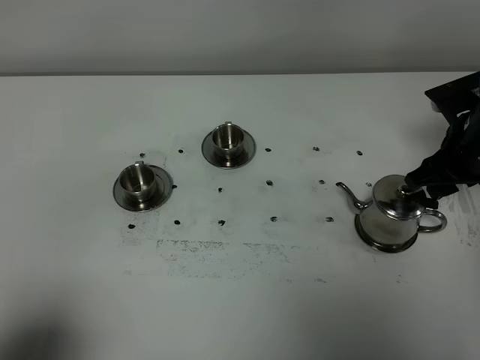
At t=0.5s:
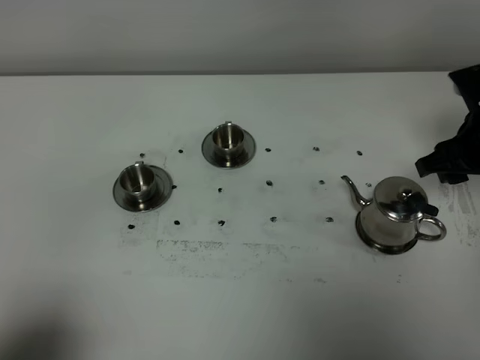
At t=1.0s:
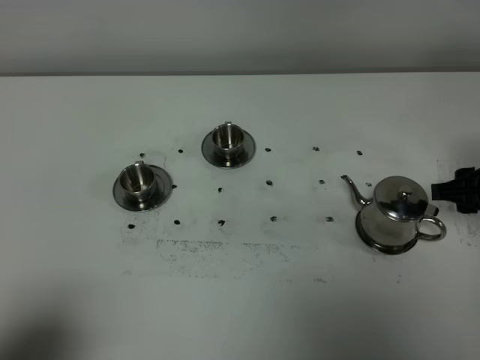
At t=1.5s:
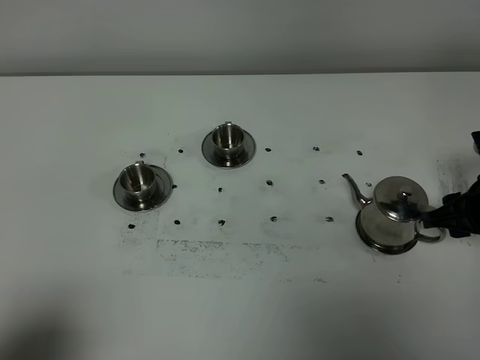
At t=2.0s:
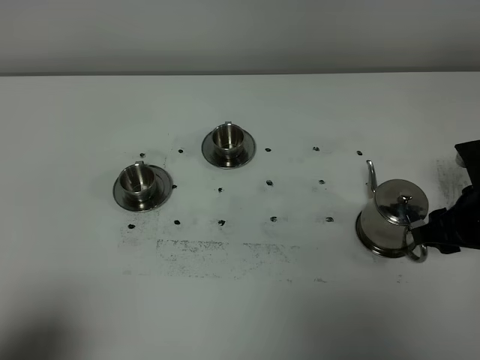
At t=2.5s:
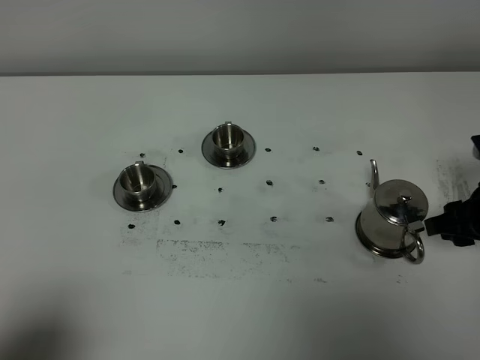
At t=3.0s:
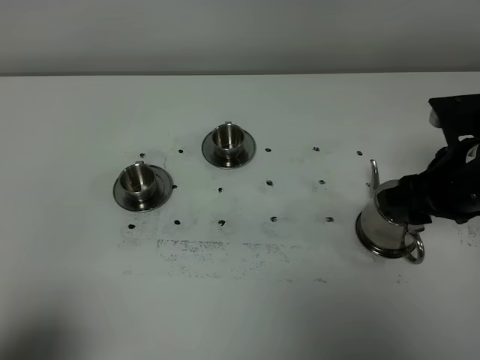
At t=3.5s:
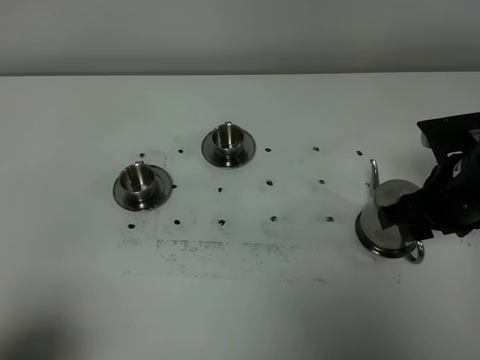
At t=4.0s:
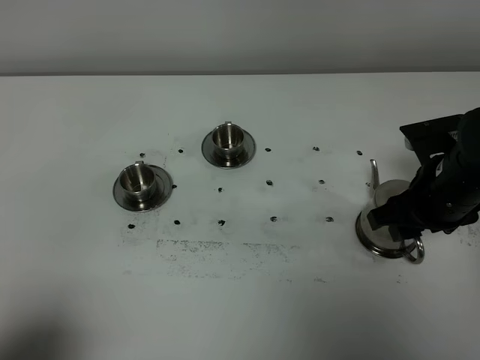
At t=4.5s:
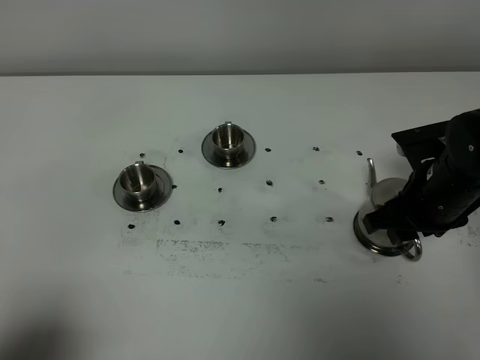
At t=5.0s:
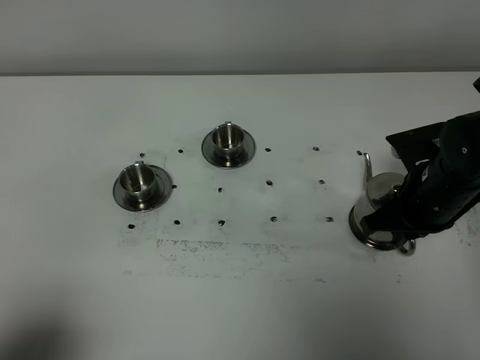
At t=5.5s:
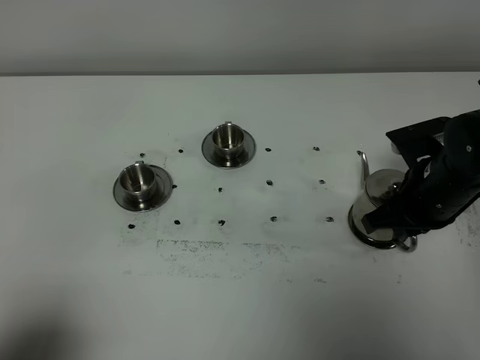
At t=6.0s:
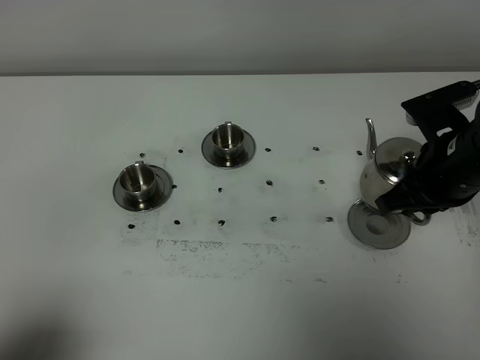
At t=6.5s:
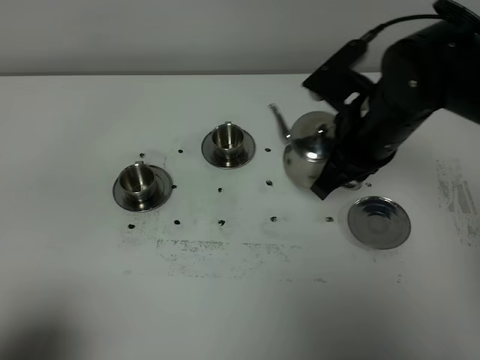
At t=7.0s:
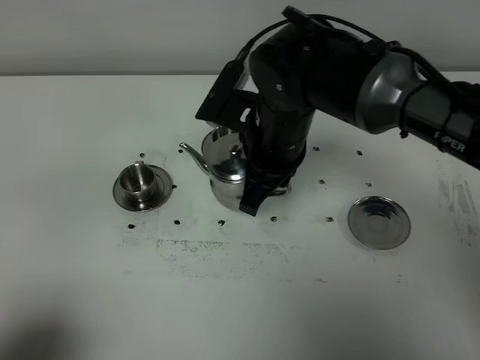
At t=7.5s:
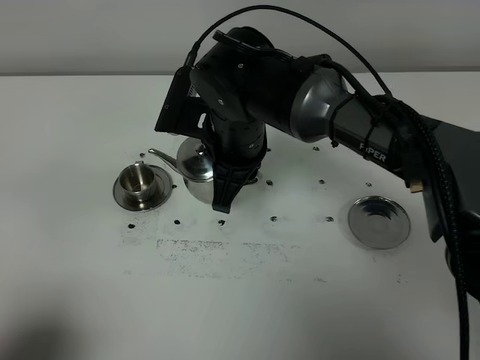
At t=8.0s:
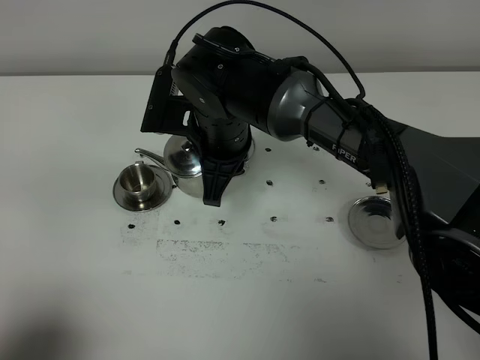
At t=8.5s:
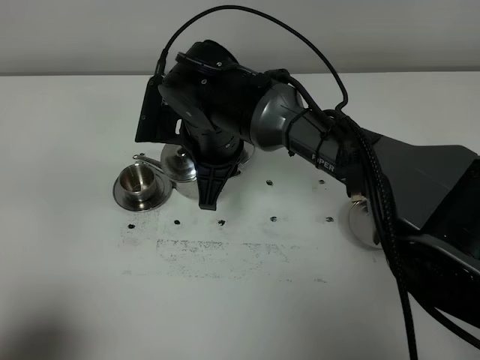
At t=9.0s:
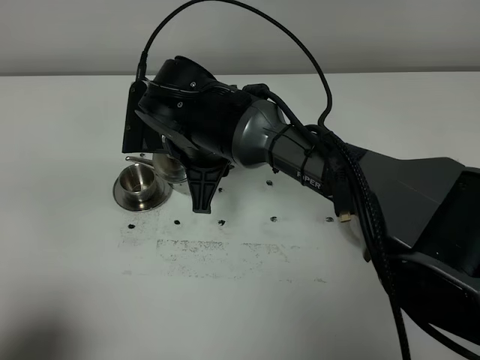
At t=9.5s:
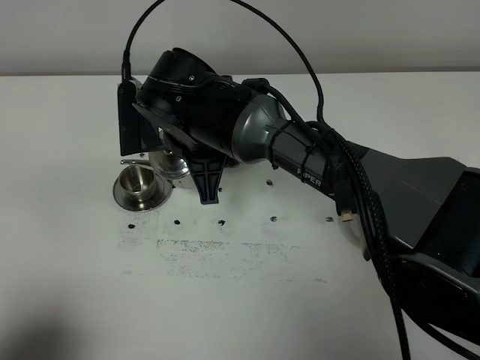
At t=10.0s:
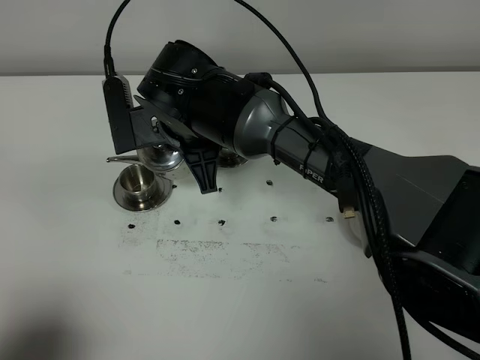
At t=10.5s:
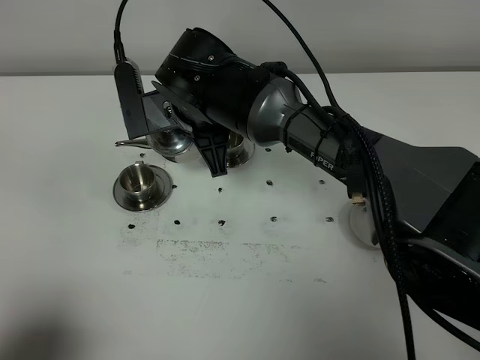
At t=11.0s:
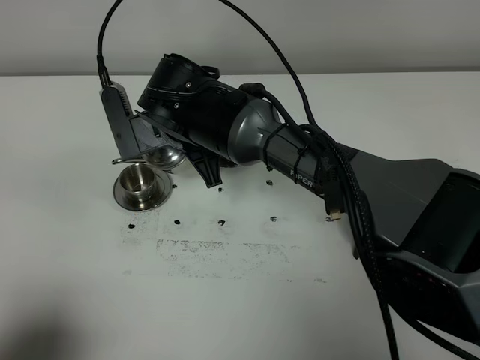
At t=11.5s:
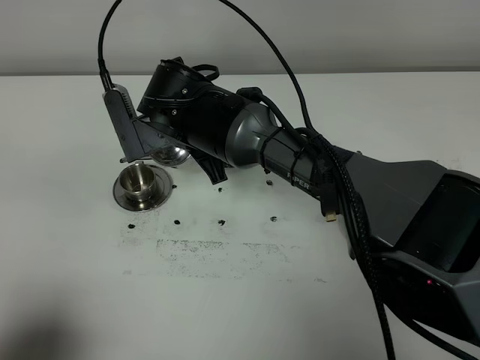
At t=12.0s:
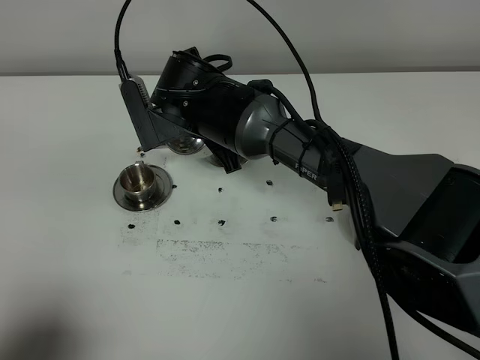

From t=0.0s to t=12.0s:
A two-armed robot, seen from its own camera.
Task of the whole recording: grasp the stainless steel teapot and pour the tea into the two stainless steel teacups one by one, put the stainless steel teapot back in its original place.
Step, from t=0.0s to t=5.5s: Pick up the teapot with the right gripper.
From t=0.0s to t=2.0s: The right gripper shifts approximately 10 cm backward.
From t=2.0s to t=4.0s: The right gripper heads to the left, covering some 5 cm.
From t=4.0s to t=6.0s: The right gripper closes up.
From t=6.0s to t=8.0s: The right gripper travels to the left by roughly 25 cm.
From t=10.0s to t=12.0s: The grippers make only small movements.

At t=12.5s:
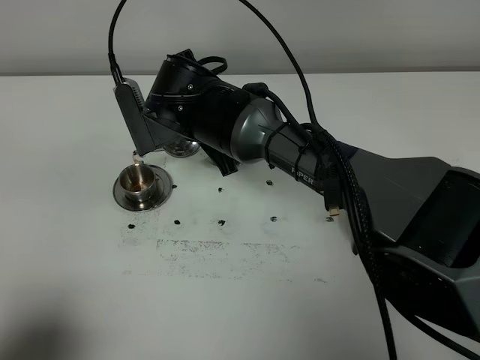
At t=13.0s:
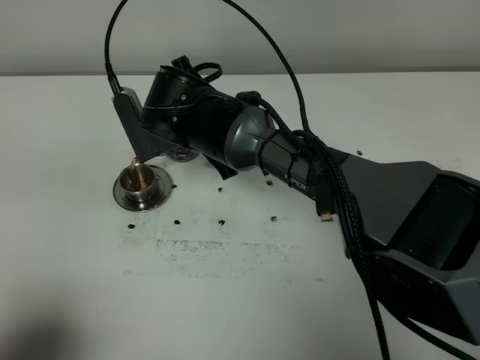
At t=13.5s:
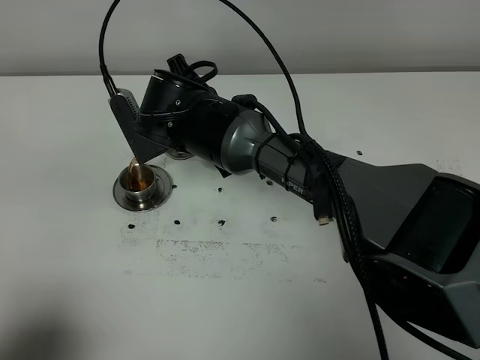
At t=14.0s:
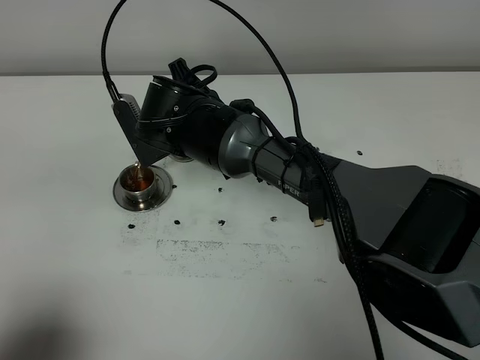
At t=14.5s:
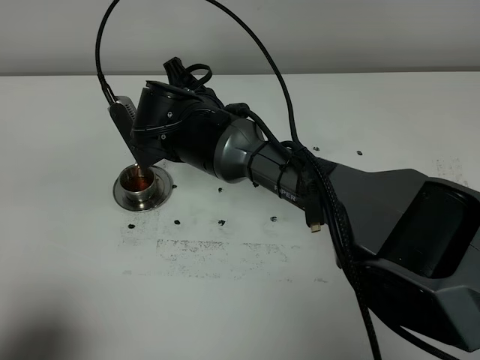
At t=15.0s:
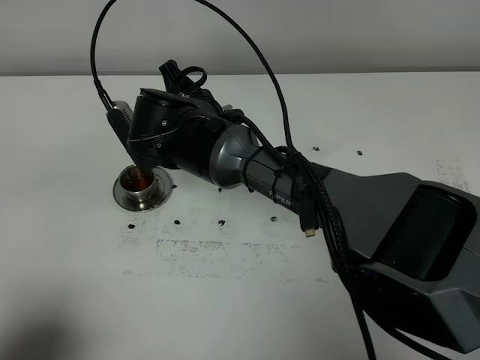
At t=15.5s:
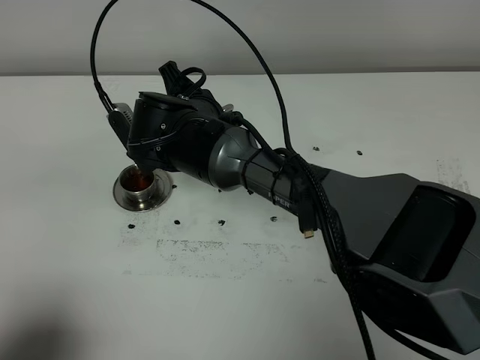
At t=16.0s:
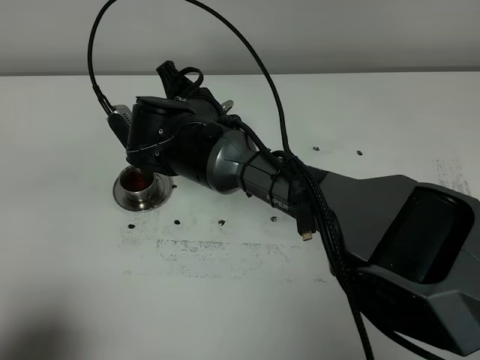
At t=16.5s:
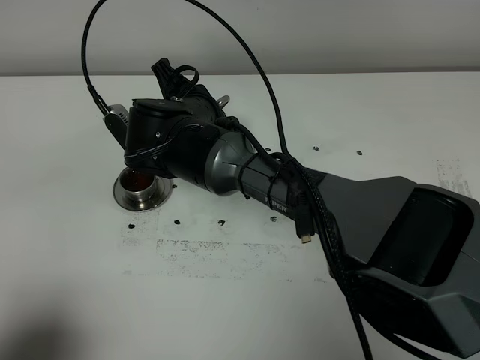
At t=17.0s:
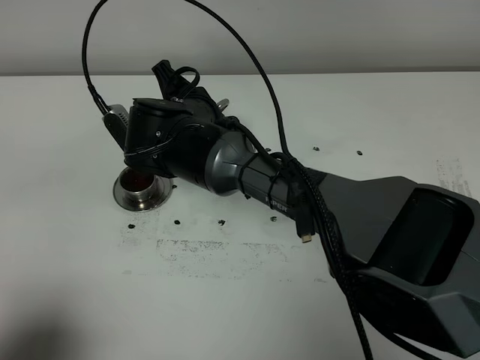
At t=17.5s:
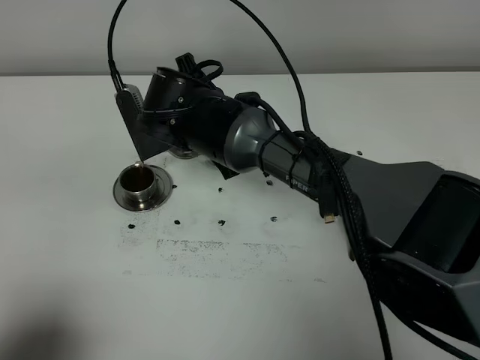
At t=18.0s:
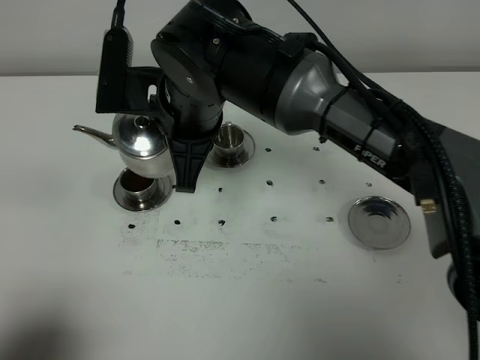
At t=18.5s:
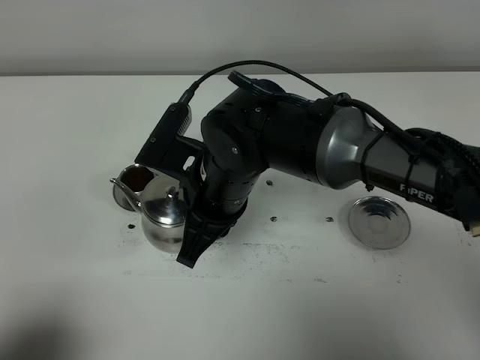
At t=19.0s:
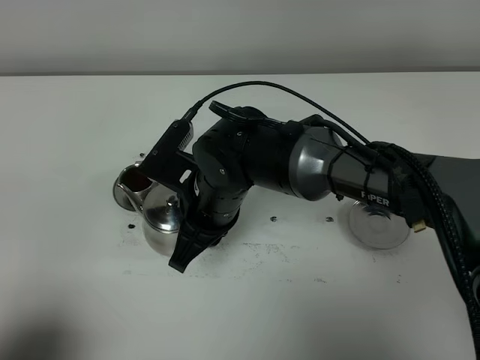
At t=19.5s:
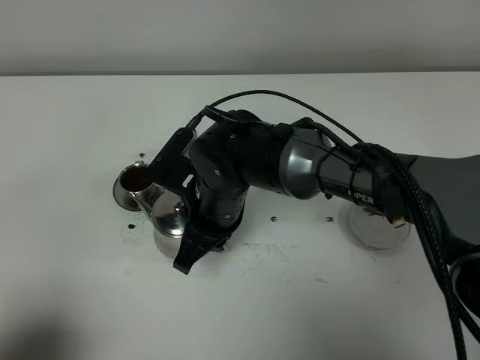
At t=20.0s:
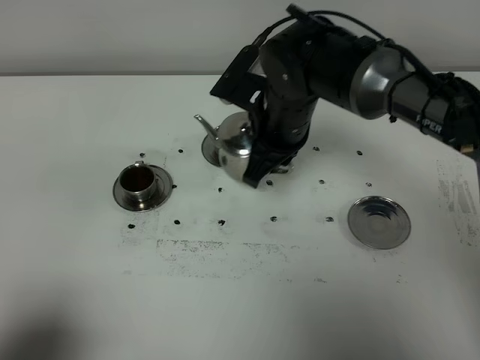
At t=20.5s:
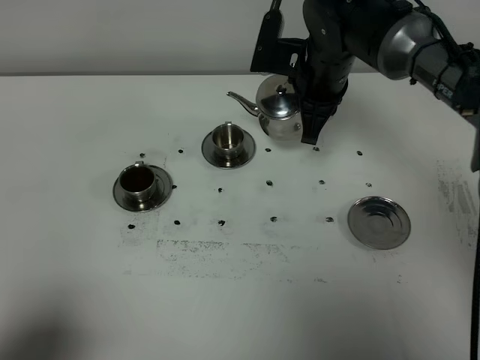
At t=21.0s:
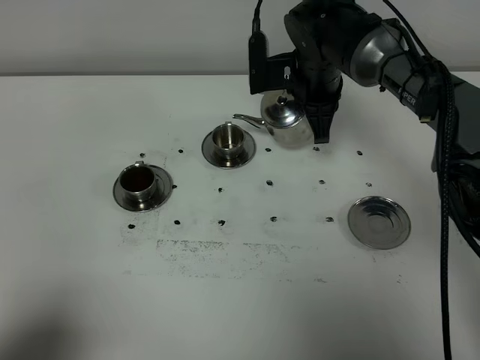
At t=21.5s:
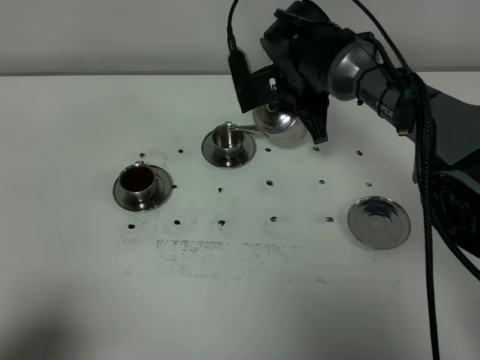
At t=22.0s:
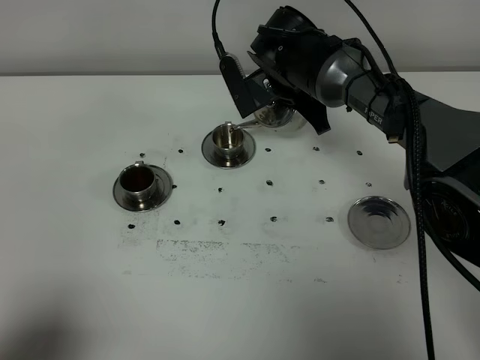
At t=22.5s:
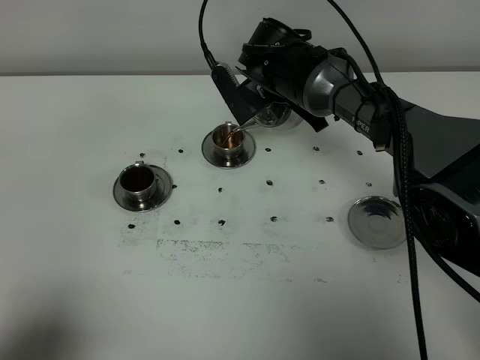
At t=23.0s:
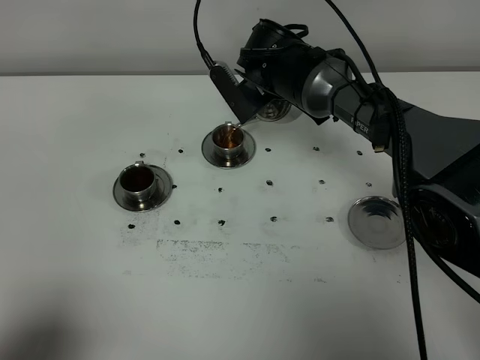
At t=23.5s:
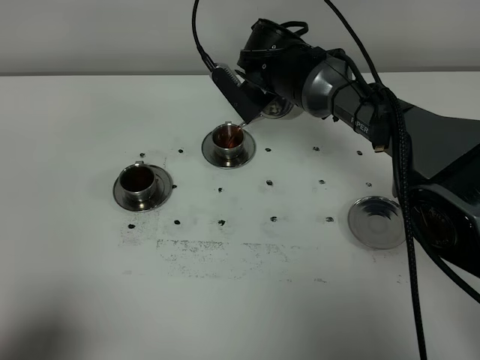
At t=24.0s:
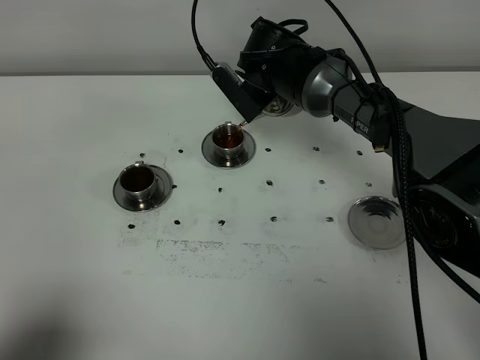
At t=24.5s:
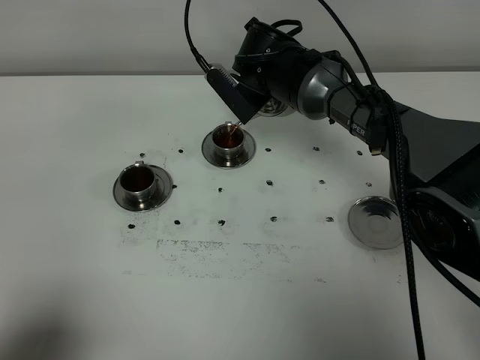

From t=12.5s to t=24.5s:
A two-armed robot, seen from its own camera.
Task of the whole recording: grasp the stainless steel teapot and pour the tea into the two stainless steel teacups one by one, put the stainless steel teapot back in its original place.
From t=12.5s to t=16.5s: The grippers make only small movements.
From t=16.5s to t=18.5s: The right gripper heads backward, covering approximately 10 cm.
From t=18.5s to t=20.5s: The right gripper moves forward and to the right, roughly 20 cm.
From t=20.5s to t=22.5s: The right gripper ends up about 5 cm from where it was.
From t=22.5s to t=24.5s: The grippers stay close to where they were, moving slightly.

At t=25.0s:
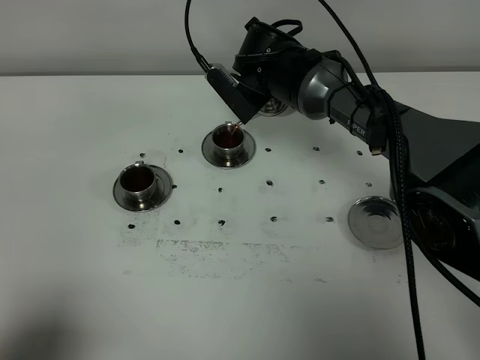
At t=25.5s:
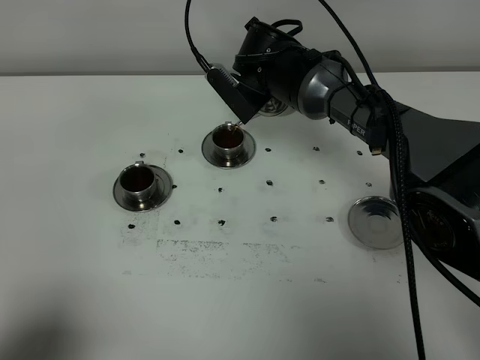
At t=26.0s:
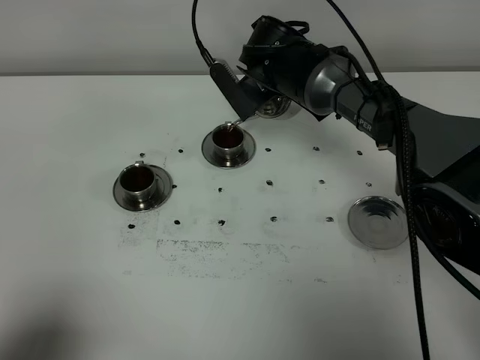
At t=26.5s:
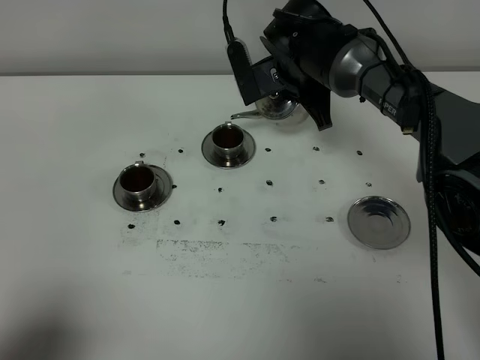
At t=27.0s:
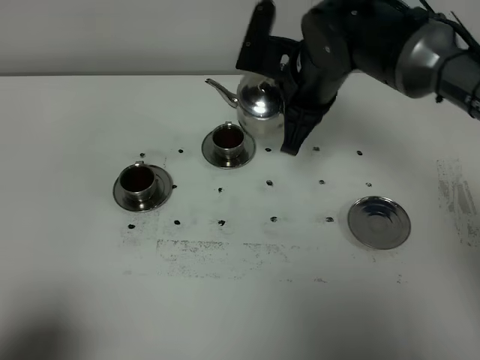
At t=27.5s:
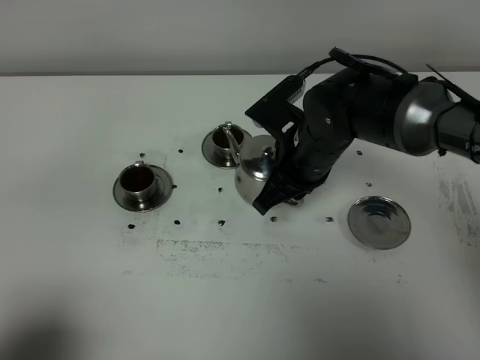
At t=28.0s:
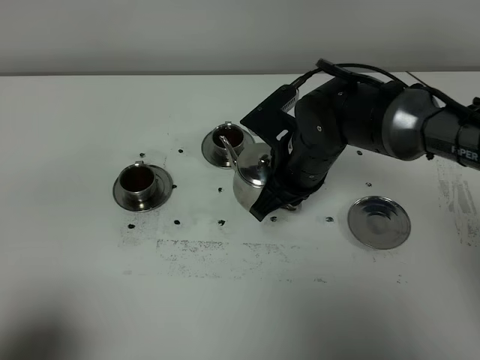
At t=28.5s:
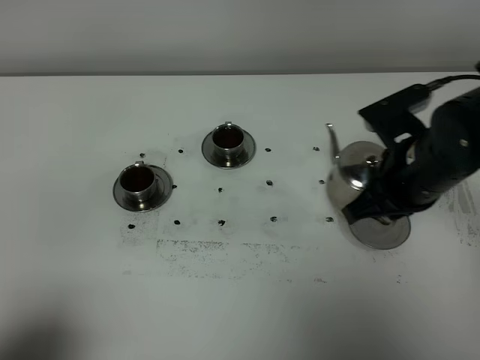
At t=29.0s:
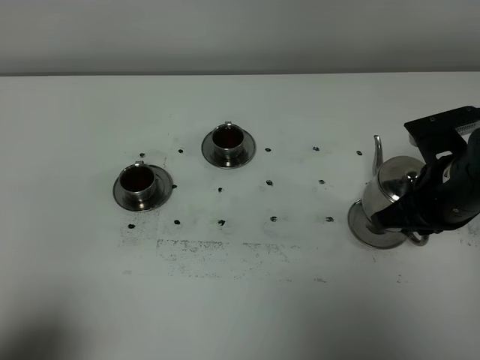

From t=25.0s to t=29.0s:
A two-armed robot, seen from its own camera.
Task of the whole recording: grasp the stainless steel teapot and pour the tea into the two stainless steel teacups one by one, put the stainless steel teapot back in its original place.
From t=25.0s to t=27.0s: The right gripper is displaced backward by approximately 10 cm.
From t=27.0s to t=29.0s: The right gripper moves to the right and backward, about 15 cm.
